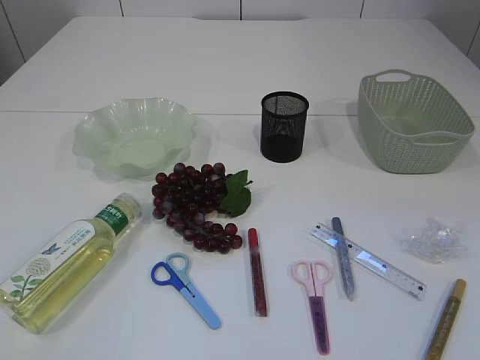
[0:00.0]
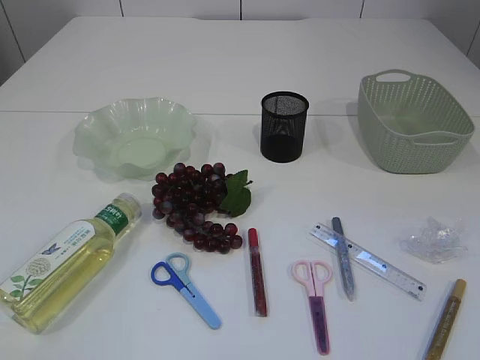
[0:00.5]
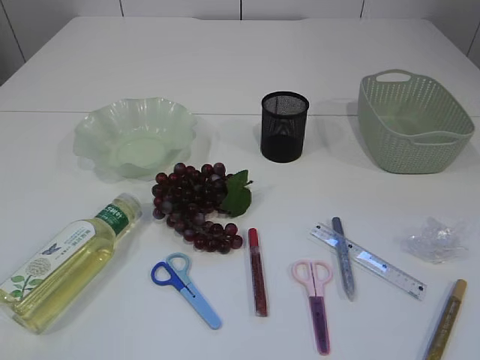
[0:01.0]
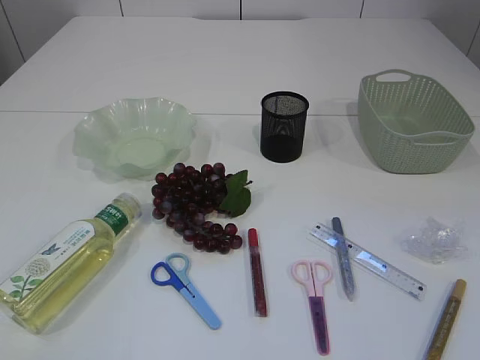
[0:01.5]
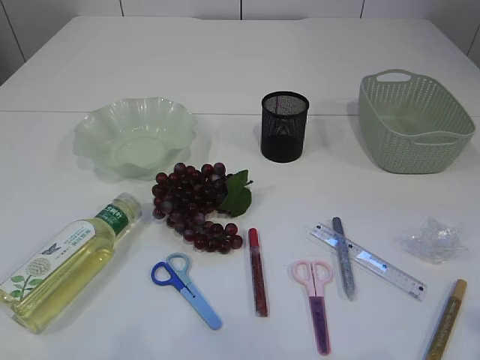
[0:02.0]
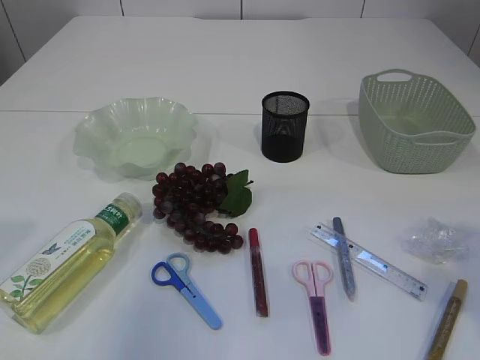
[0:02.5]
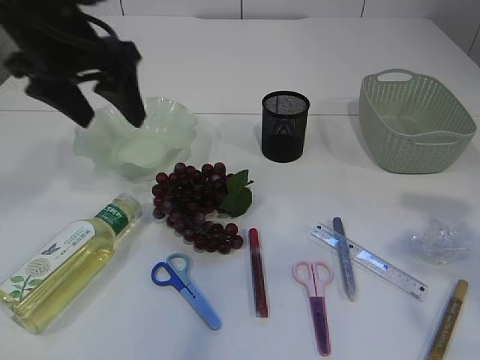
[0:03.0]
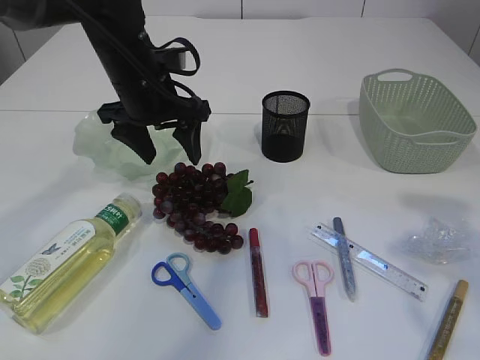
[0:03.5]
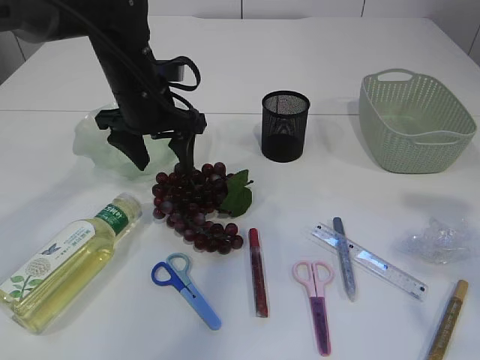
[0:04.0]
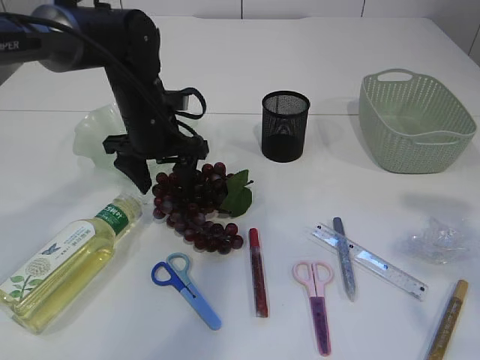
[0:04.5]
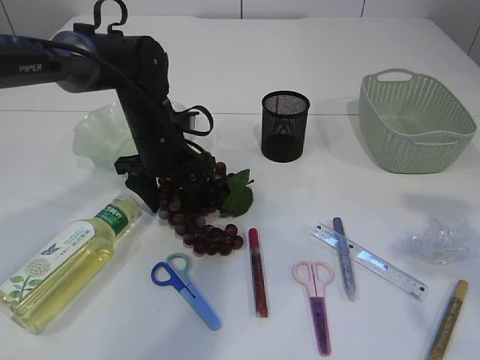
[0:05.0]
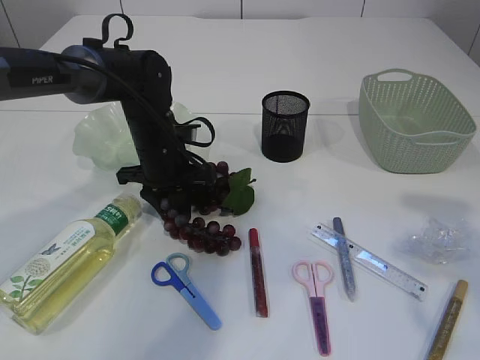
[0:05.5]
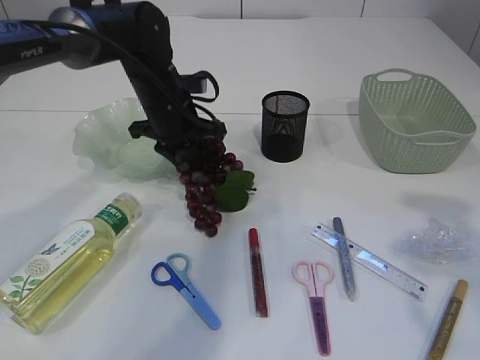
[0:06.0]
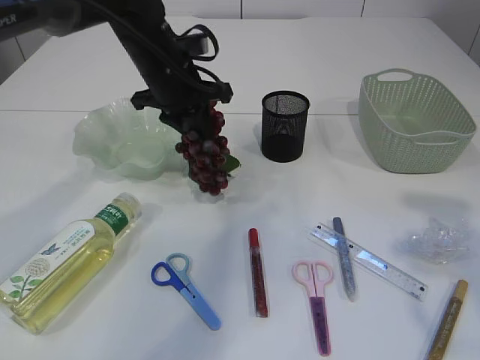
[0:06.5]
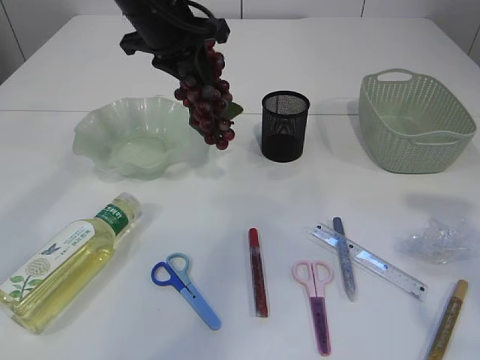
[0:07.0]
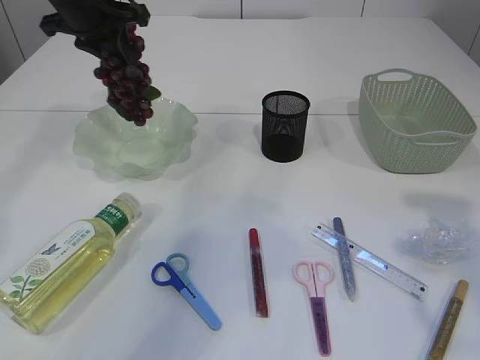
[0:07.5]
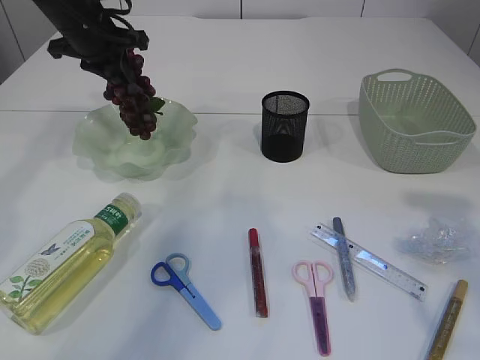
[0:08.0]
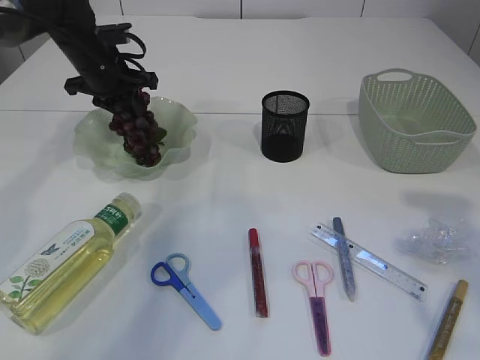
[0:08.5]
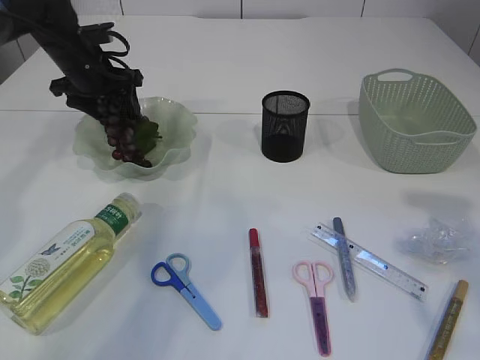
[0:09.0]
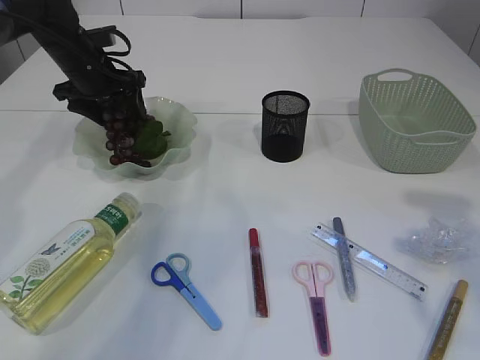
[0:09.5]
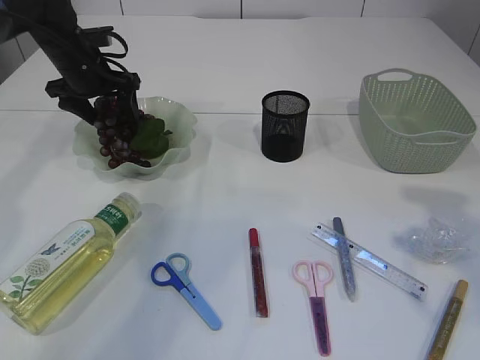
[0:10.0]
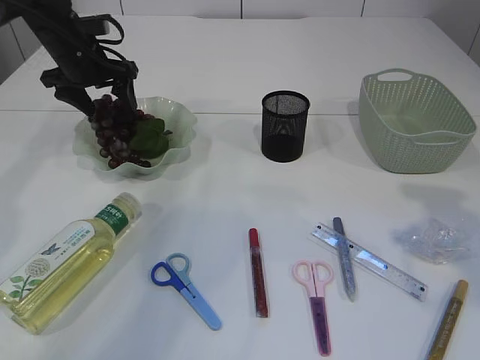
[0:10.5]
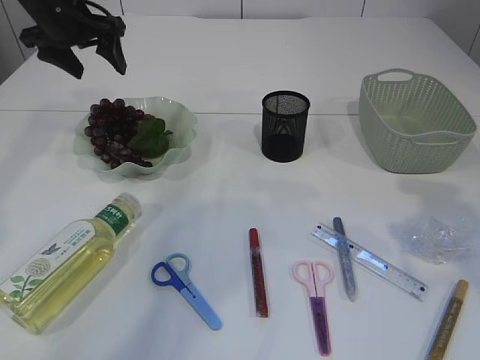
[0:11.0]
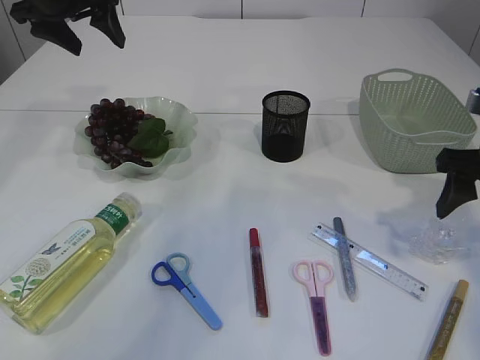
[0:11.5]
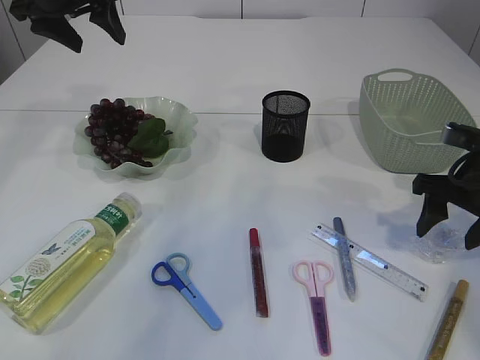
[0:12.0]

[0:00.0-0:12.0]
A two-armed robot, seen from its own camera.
Step, 0:00.0 to 0:06.5: Pick up the grapes.
Step, 0:07.0 to 0:11.0: Place the grapes in the plate.
0:02.0 to 0:04.0: The right gripper is displaced forward by roughly 15 cm; the left gripper goes some 40 cm forward and to the right, and opens its fingers.
0:04.0 to 0:06.0: The left gripper closes up.
0:06.0 to 0:08.0: The left gripper is displaced to the left, upward and forward by approximately 15 cm.
0:08.0 to 0:10.0: The left gripper goes roughly 5 cm downward, and opens up.
0:10.0 to 0:12.0: The right gripper moves downward and forward, some 20 cm; the left gripper goes roughly 15 cm upward.

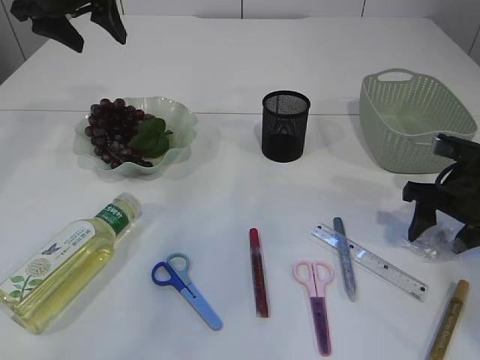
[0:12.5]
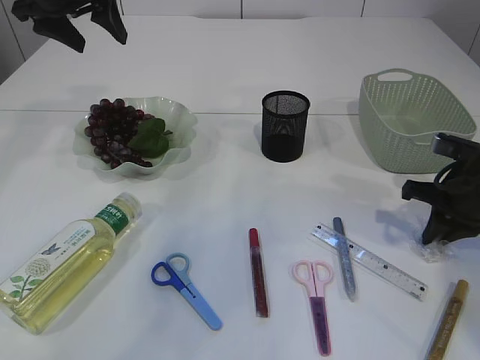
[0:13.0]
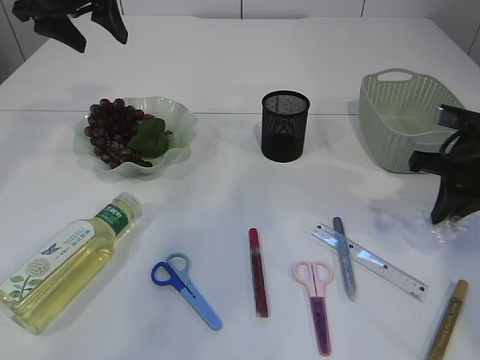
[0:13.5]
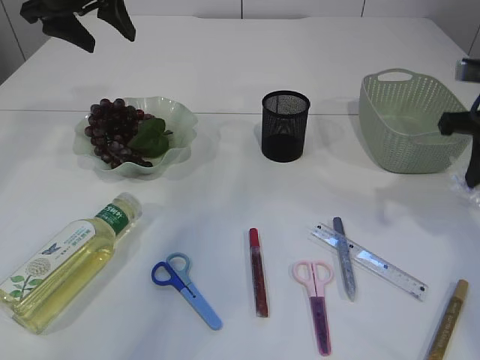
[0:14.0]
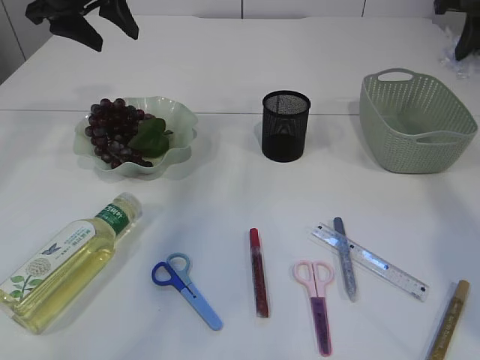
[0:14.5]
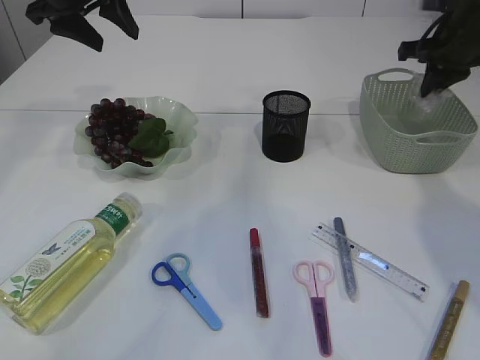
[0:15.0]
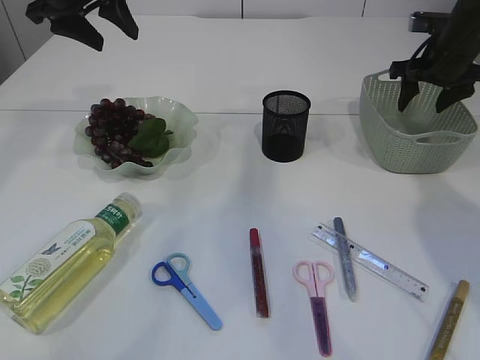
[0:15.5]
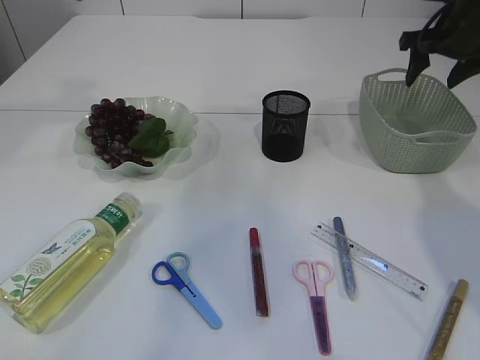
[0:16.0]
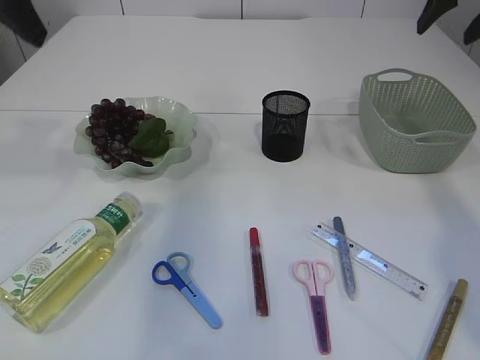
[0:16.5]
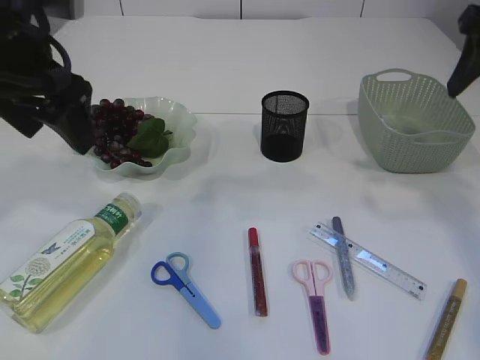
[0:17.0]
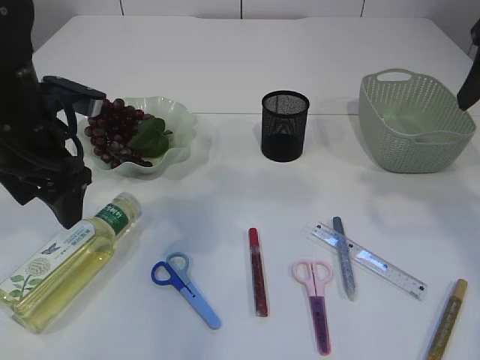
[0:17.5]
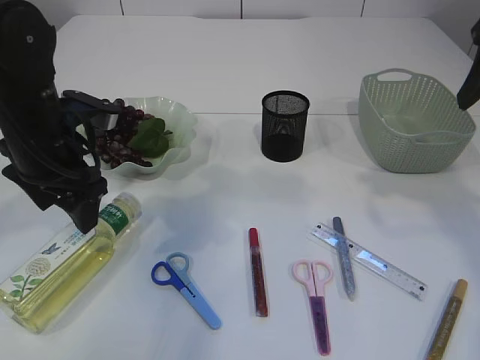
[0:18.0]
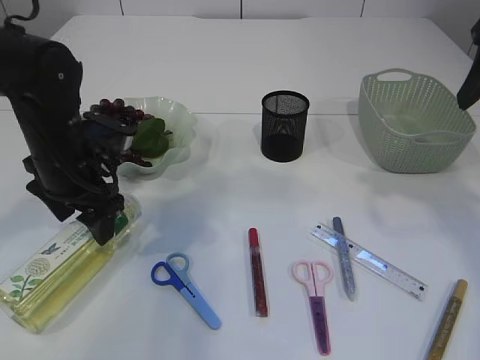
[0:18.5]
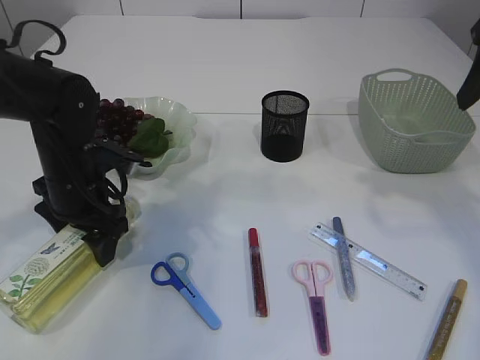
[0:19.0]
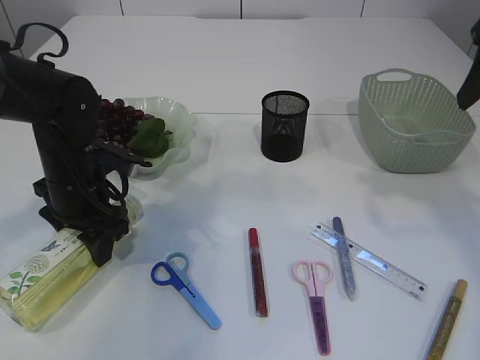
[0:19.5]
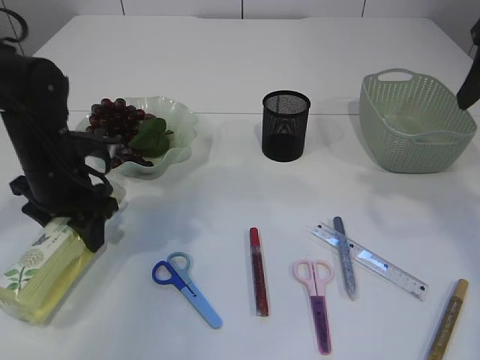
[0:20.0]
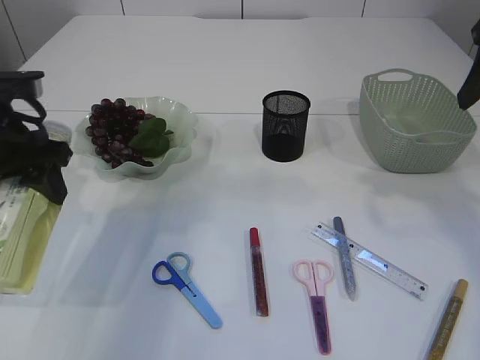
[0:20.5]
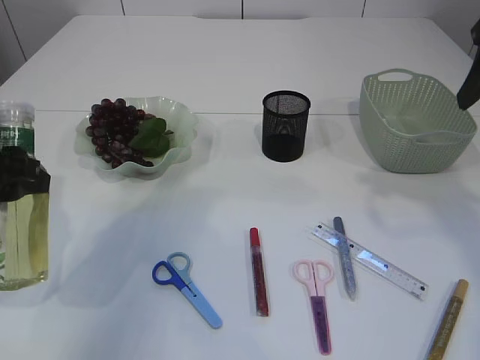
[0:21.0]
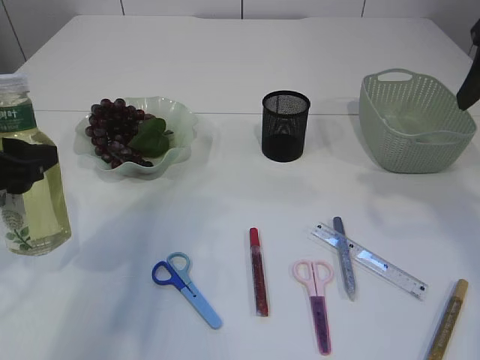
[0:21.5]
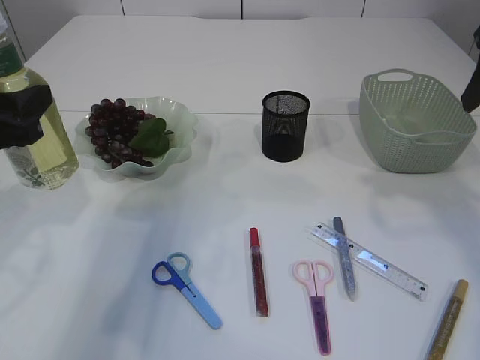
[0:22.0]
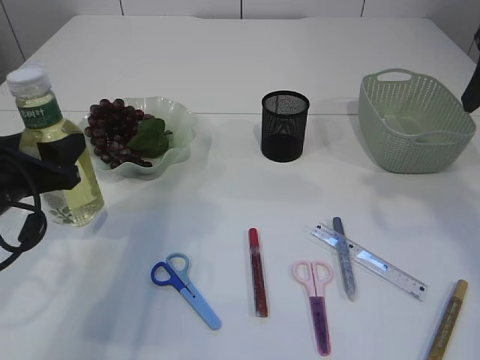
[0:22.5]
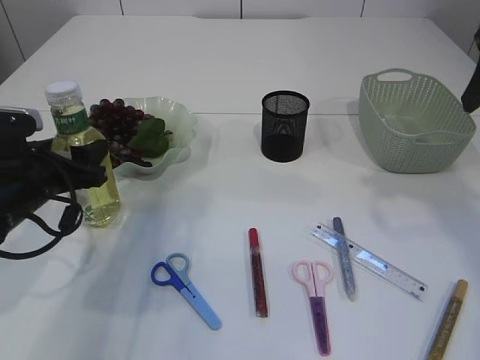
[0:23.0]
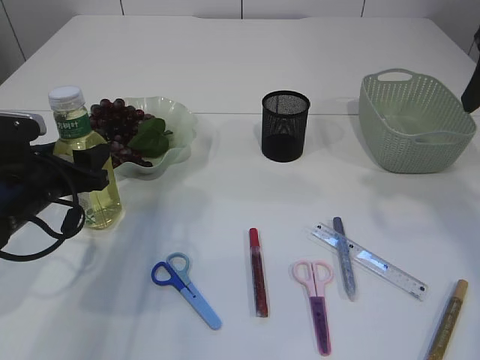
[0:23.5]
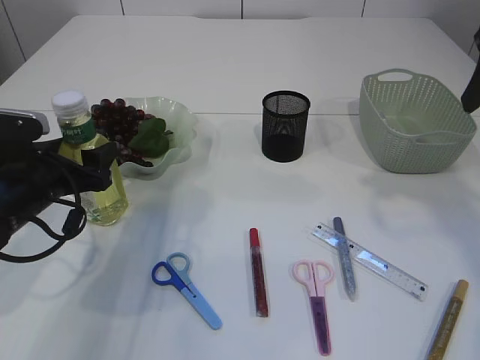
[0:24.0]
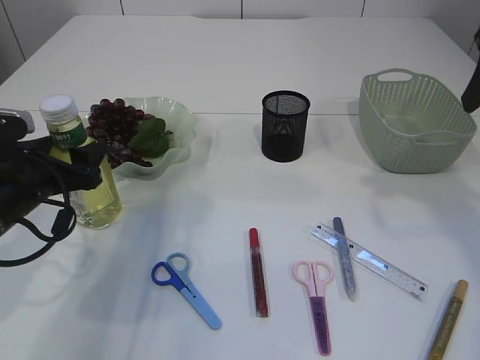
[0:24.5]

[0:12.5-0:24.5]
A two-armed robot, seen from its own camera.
Step, 0:12.5 to 0:14.0: Pick up the plastic.
Step, 0:14.5 to 0:16.0: Place the plastic in the basket.
Step, 0:16.5 to 0:20.5: Pick up the bottle with the left arm.
0:12.5 to 0:14.5: The right gripper shifts about 25 cm upward and forward, and closes up.
0:14.5 to 0:16.5: The right gripper reaches about 10 cm downward, then returns, and opens its fingers. Meanwhile the left gripper travels backward and upward by roughly 15 cm.
0:16.5 to 0:18.5: The right gripper is displaced backward by roughly 10 cm. The left gripper is displaced downward by some 20 cm.
0:18.5 to 0:20.5: The left gripper goes some 10 cm to the left and upward, and closes up.
0:20.5 to 0:22.5: The left gripper heads downward and backward, covering approximately 10 cm.
0:22.5 to 0:24.5: There are only small adjustments of the grippers.

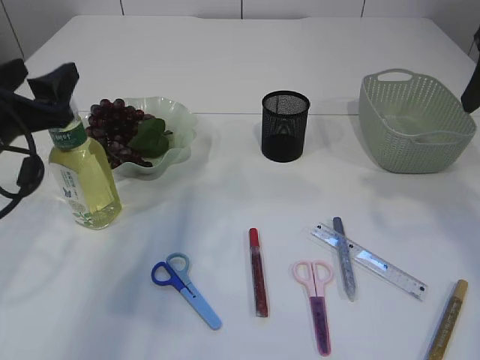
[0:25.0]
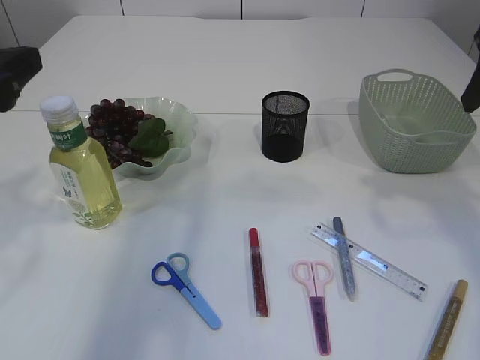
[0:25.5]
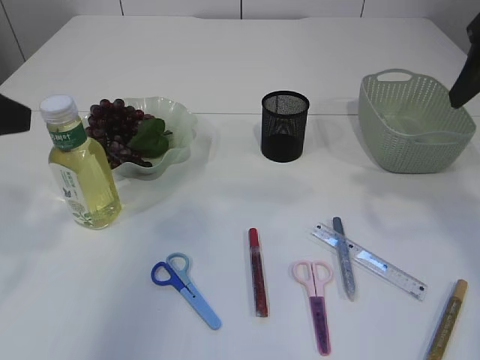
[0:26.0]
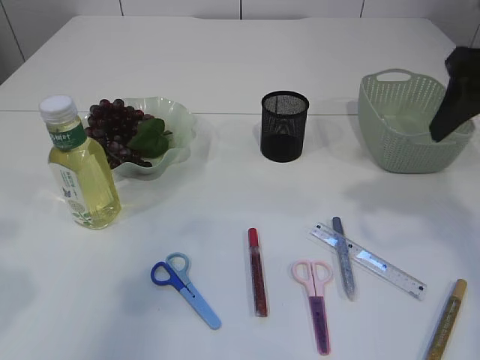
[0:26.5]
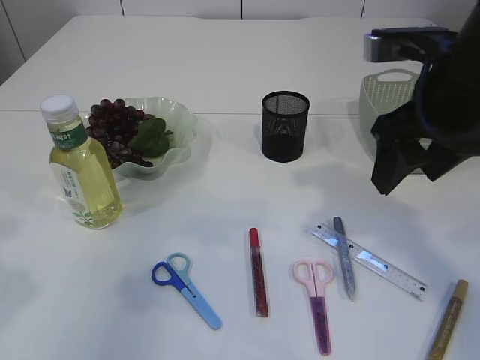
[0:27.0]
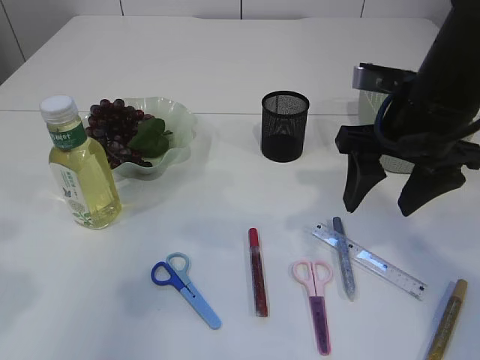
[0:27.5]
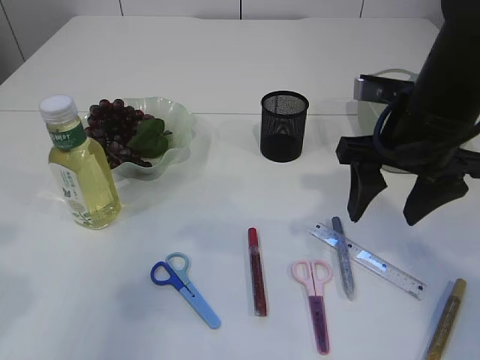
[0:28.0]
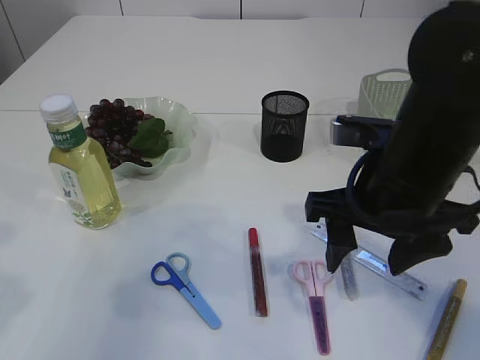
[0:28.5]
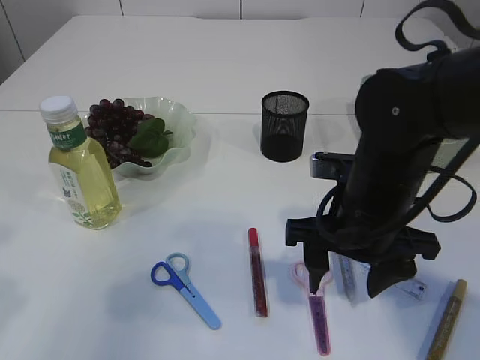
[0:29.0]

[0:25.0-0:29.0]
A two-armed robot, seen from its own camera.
0:25.0 to 0:27.0: The left gripper heads backward and upward, covering approximately 15 cm. The right gripper travels to the left by roughly 10 cm.
0:27.0 to 0:29.0: The right gripper travels downward and to the left by about 15 cm.
